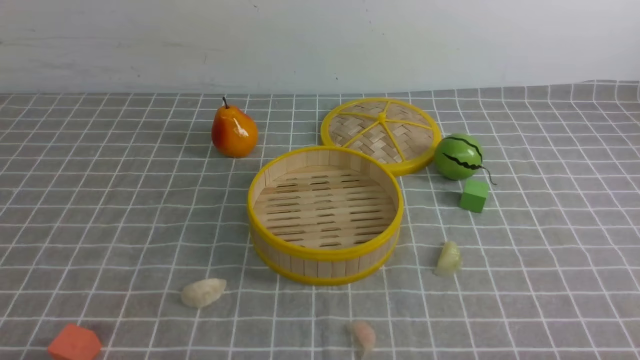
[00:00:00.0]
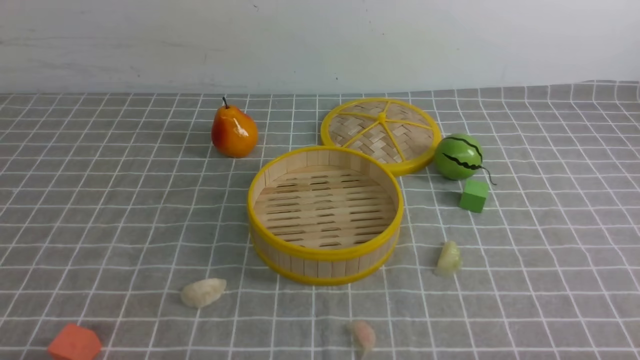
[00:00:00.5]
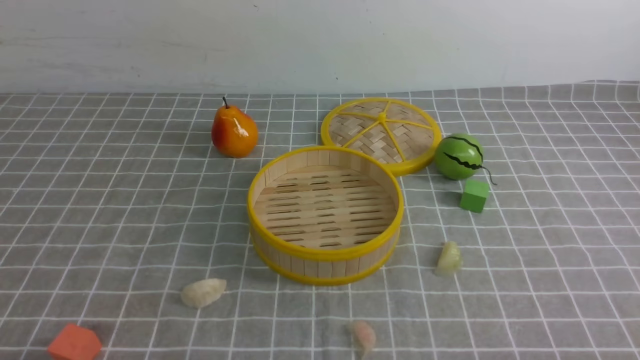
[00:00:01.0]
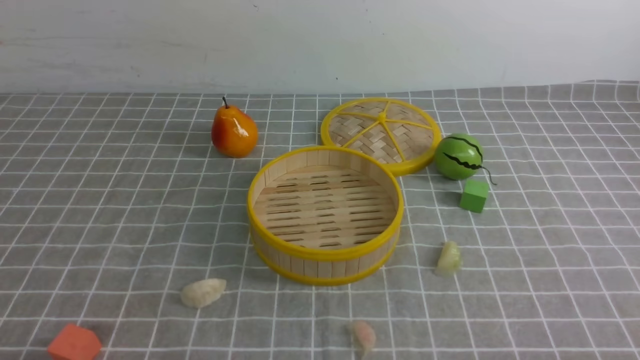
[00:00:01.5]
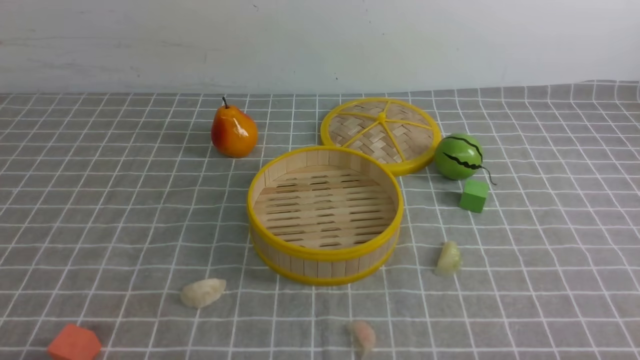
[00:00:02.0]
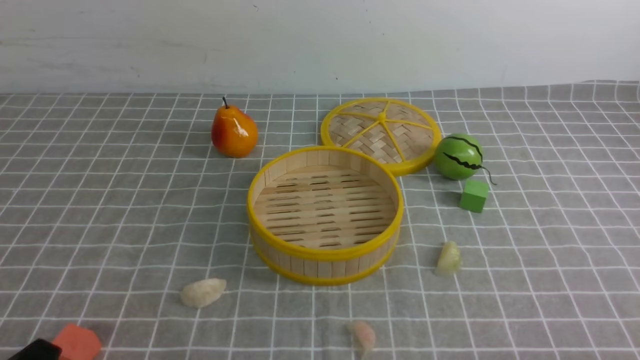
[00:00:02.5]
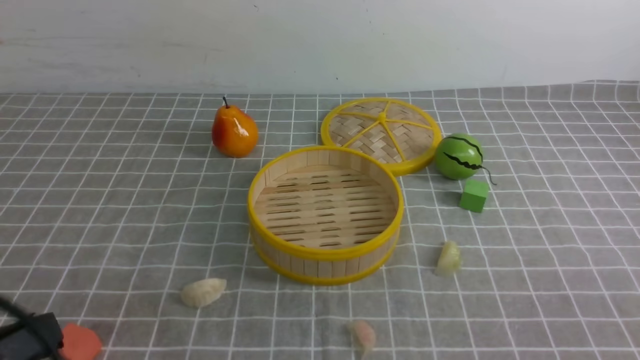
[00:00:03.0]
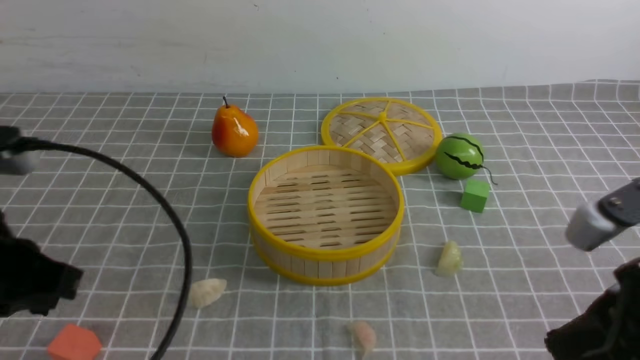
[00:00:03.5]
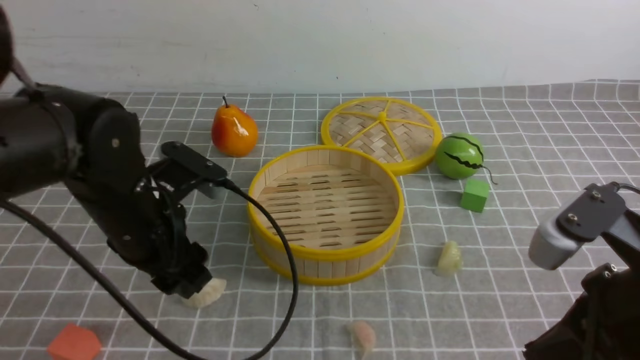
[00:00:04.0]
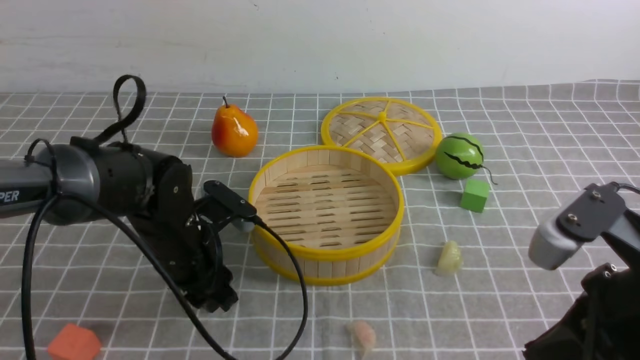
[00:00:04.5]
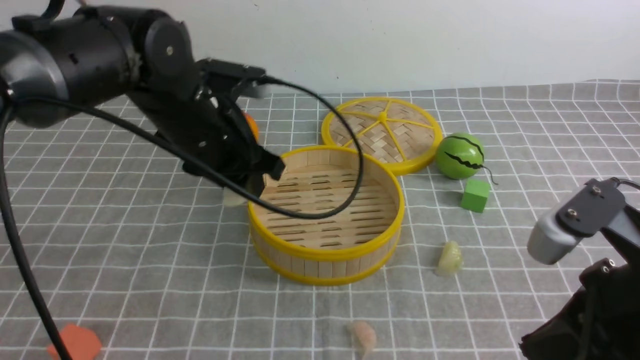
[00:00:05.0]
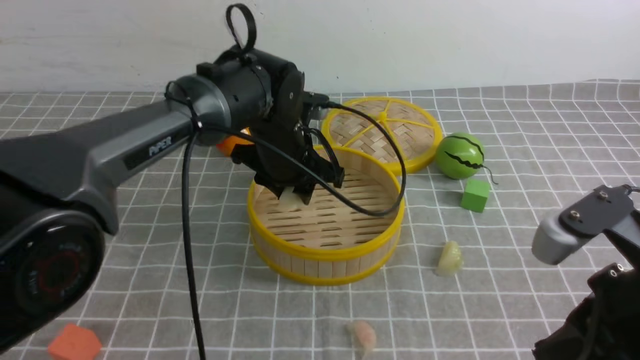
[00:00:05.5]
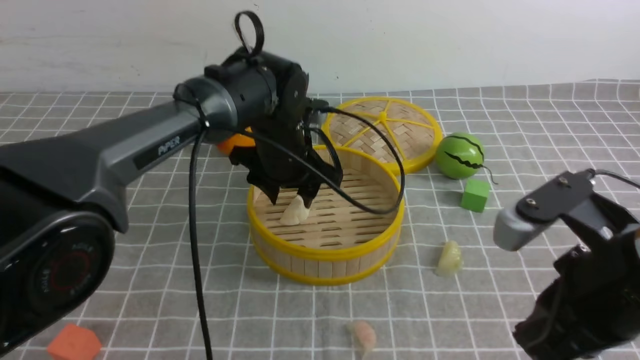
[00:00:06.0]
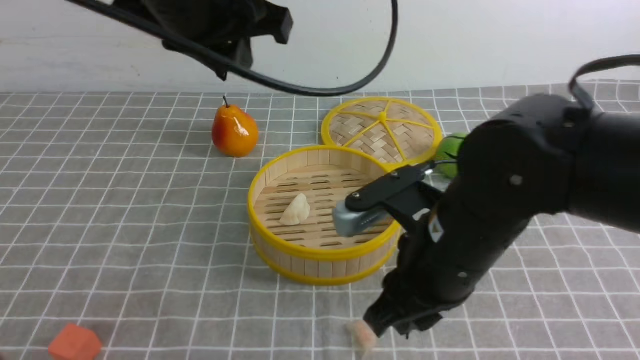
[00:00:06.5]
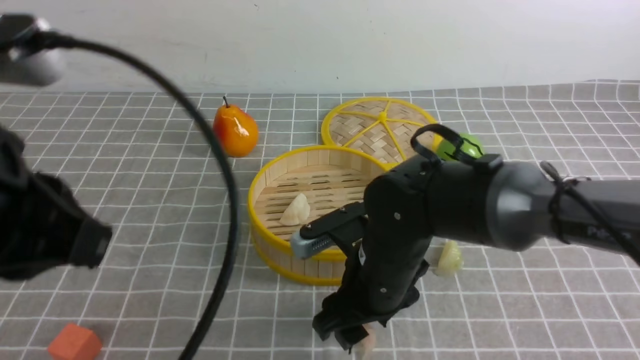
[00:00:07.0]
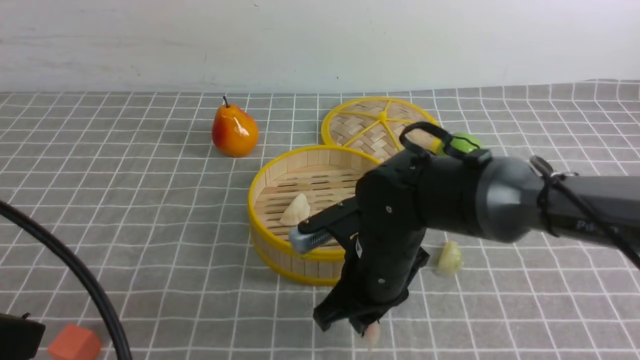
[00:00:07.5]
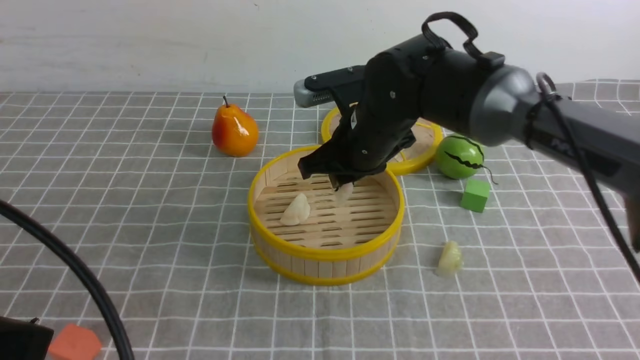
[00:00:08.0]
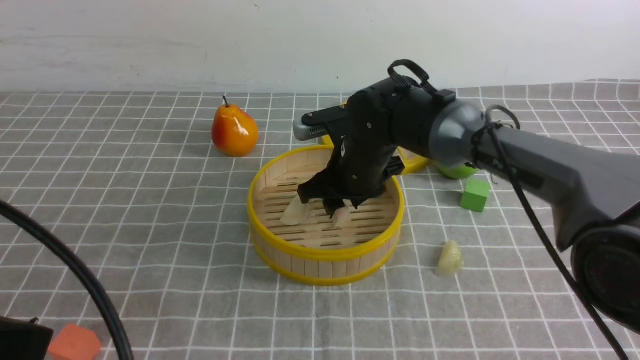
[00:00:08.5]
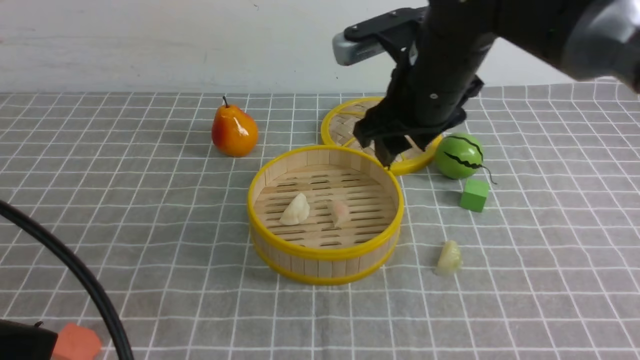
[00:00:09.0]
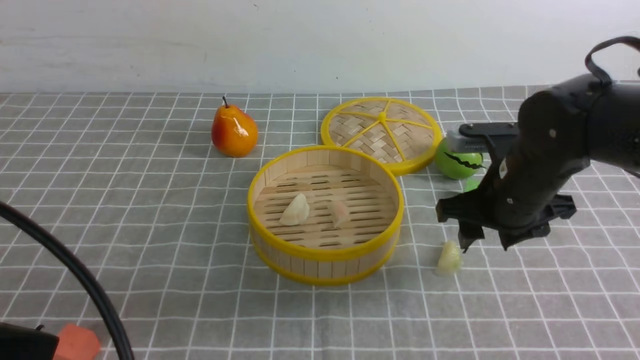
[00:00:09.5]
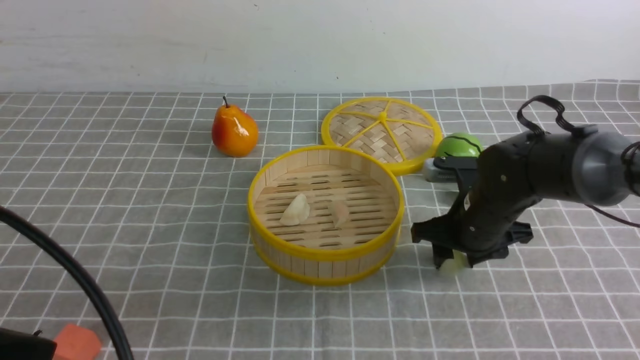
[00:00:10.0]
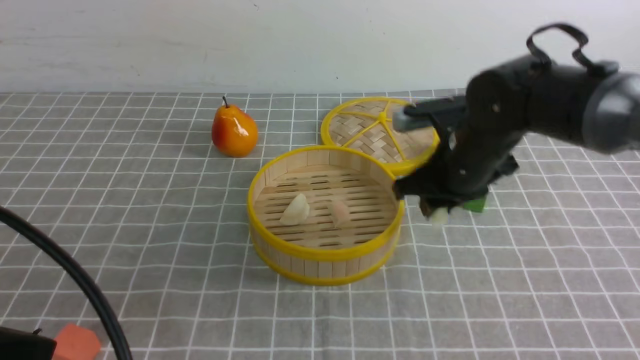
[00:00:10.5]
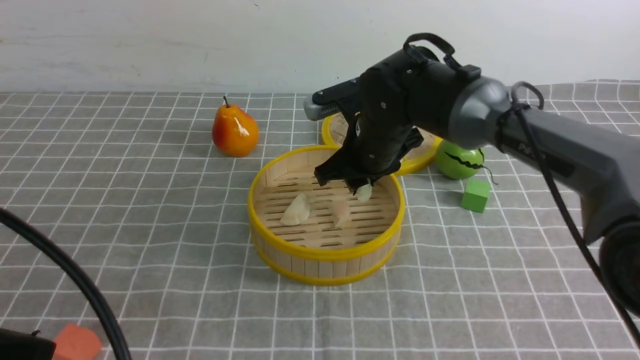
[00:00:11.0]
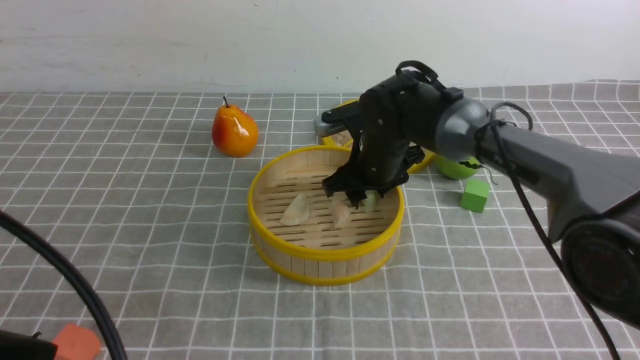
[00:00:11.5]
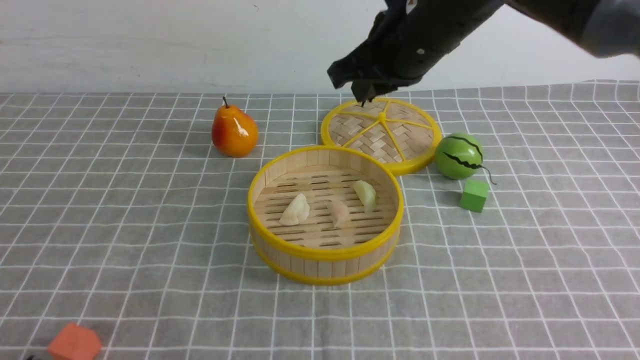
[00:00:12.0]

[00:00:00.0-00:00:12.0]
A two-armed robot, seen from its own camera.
Task of the whole recording: put the dumplings into the steamer on the table with the grey tablecloth.
Step, 00:00:00.0 to 00:00:04.5: use the left arm to grab a dumpling.
Step, 00:00:05.0 to 00:00:06.0: use the left arm to put the dumpling into the steamer.
Step, 00:00:06.5 to 00:00:07.0: use the right arm to grab a dumpling.
Step, 00:00:07.5 to 00:00:08.5: use the right arm to put the dumpling into the steamer.
Step, 00:00:09.0 to 00:00:10.0: use the right arm to grab a dumpling.
Step, 00:00:10.5 to 00:00:11.5: use the right arm to put the dumpling into the steamer.
00:00:02.0 to 00:00:04.0: The left gripper is displaced forward by about 25 cm, and closes, then reopens, while the right gripper is displaced upward, forward and to the left by approximately 20 cm, and closes.
00:00:04.0 to 00:00:06.0: The left gripper is displaced forward and to the right by approximately 20 cm.
00:00:06.0 to 00:00:08.0: The right gripper shifts approximately 25 cm forward and to the left, and opens, then closes again, while the left gripper heads backward and to the left, covering about 40 cm, and closes.
00:00:08.0 to 00:00:10.0: The right gripper goes up and down, some 15 cm each way, reversing 2 times, and opens up.
00:00:10.0 to 00:00:12.0: The right gripper moves up and down over about 15 cm, changing direction 2 times, and closes. Meanwhile the left gripper moves downward, some 5 cm.

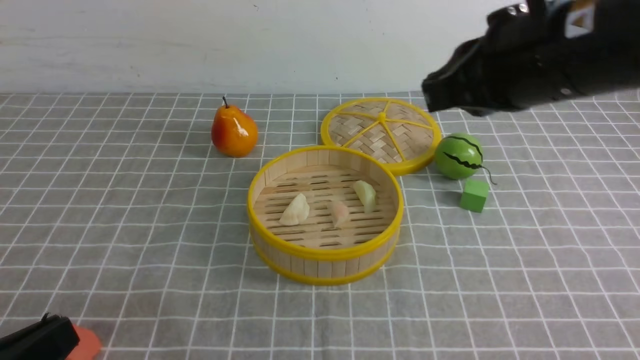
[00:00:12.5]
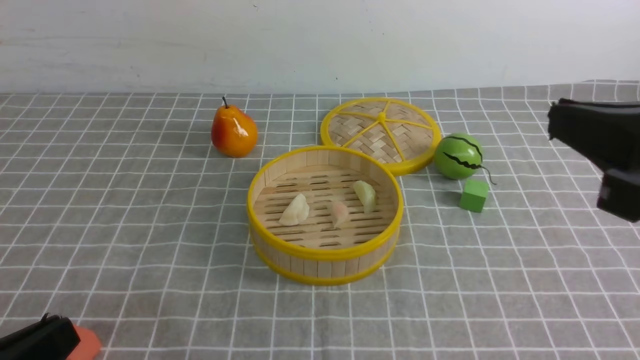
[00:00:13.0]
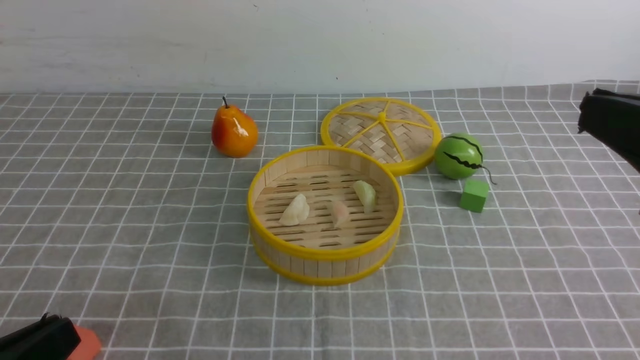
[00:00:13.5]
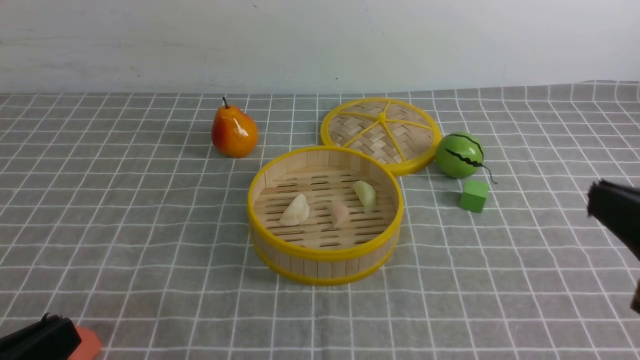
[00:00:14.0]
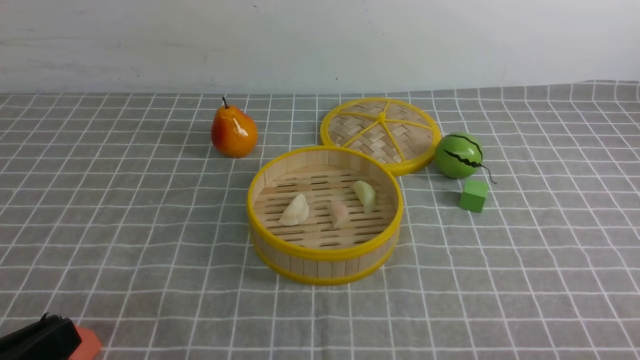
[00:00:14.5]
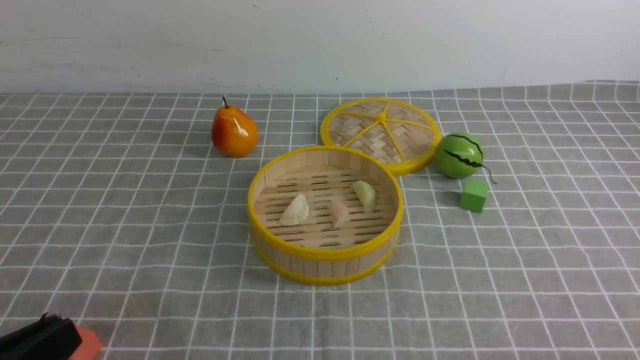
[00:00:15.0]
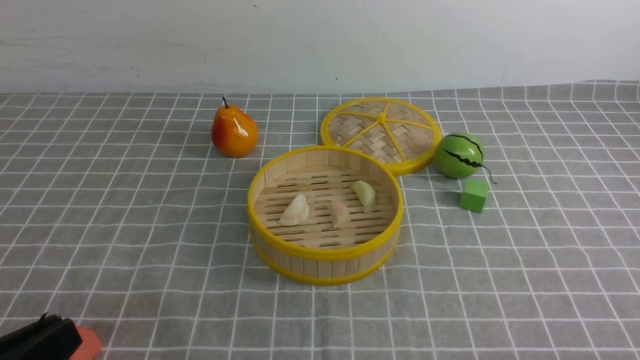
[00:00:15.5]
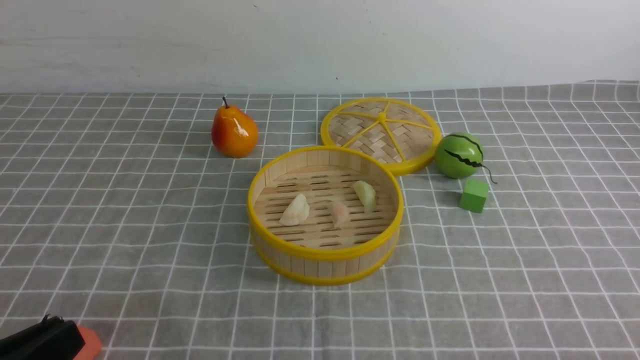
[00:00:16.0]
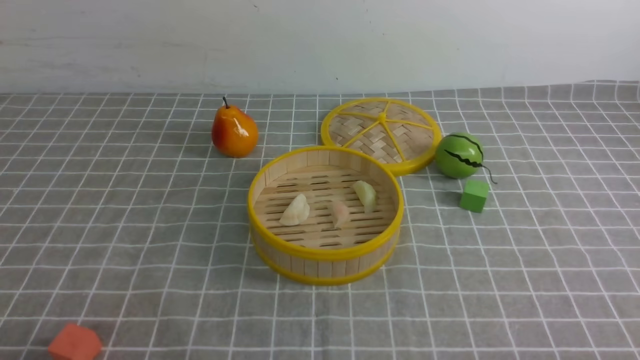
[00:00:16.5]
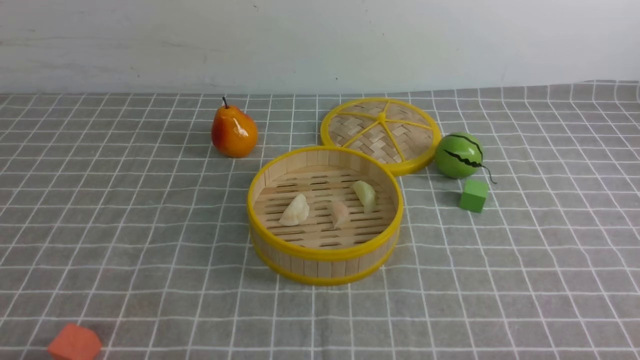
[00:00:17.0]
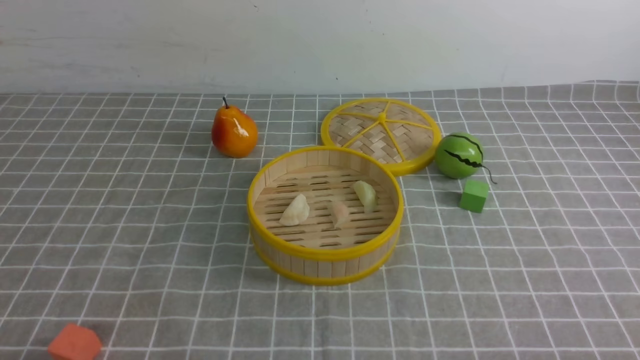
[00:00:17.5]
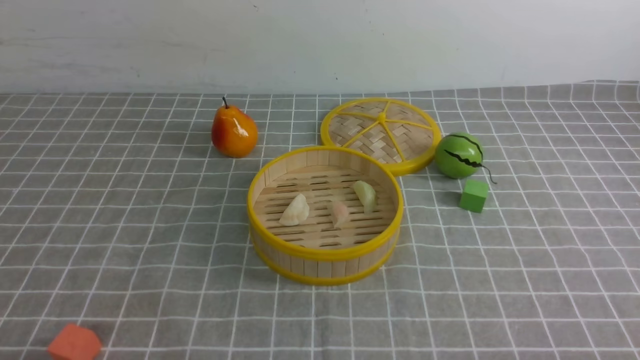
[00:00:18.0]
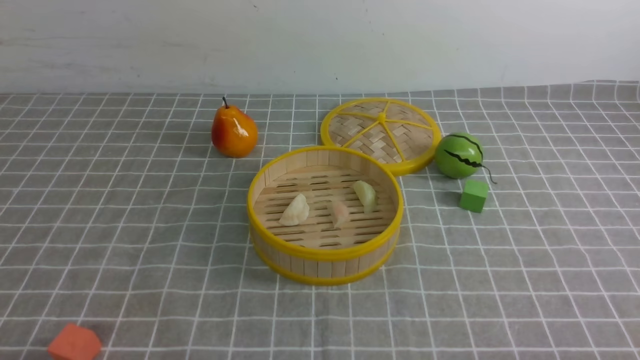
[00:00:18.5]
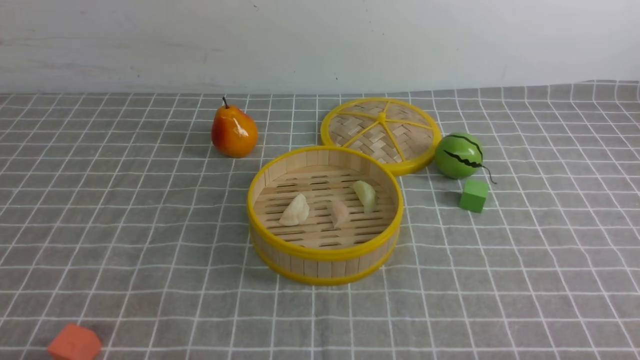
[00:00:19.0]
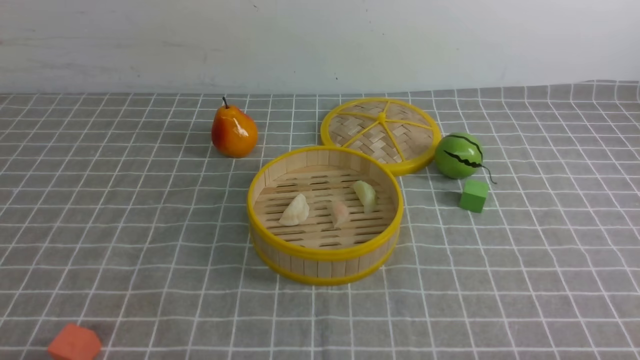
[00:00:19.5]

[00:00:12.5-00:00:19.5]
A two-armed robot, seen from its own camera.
Task of the whole recording: put the dumplings into the steamer on the table with the grey tablecloth.
00:00:12.5 to 00:00:14.5: The right gripper moves backward, downward and to the right, about 35 cm.
00:00:16.0 to 00:00:17.5: The left gripper travels downward by approximately 10 cm.
00:00:17.5 to 00:00:19.5: Neither gripper changes place.
